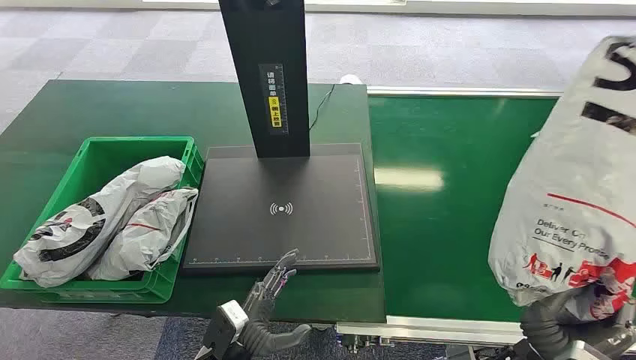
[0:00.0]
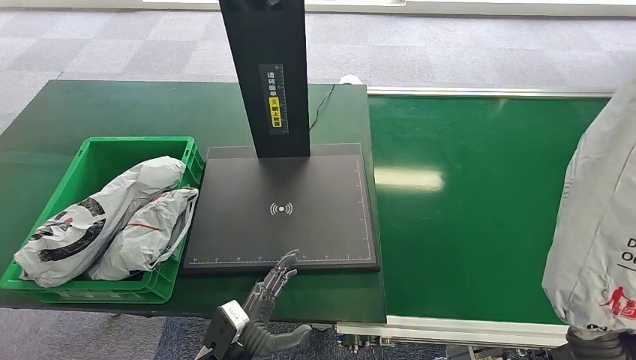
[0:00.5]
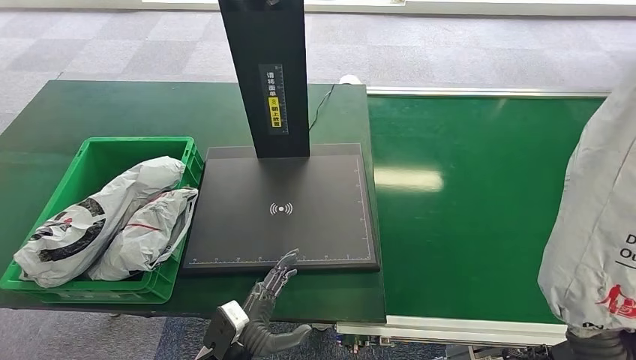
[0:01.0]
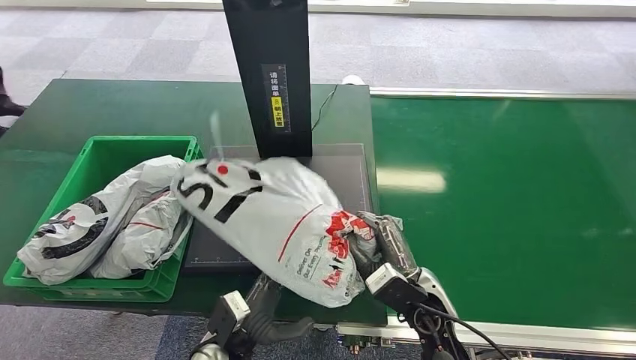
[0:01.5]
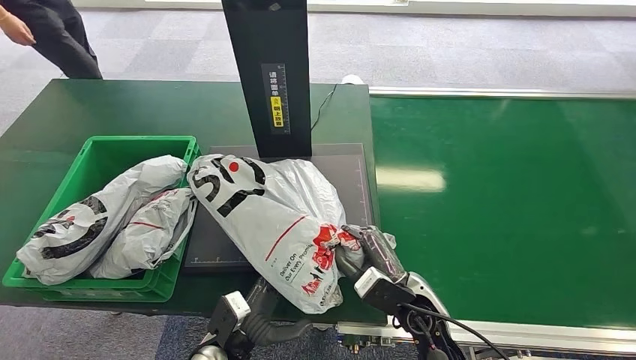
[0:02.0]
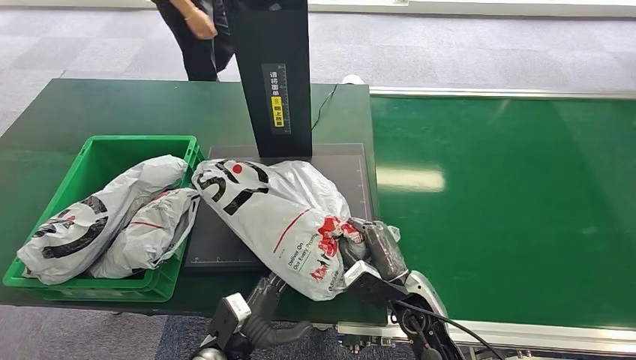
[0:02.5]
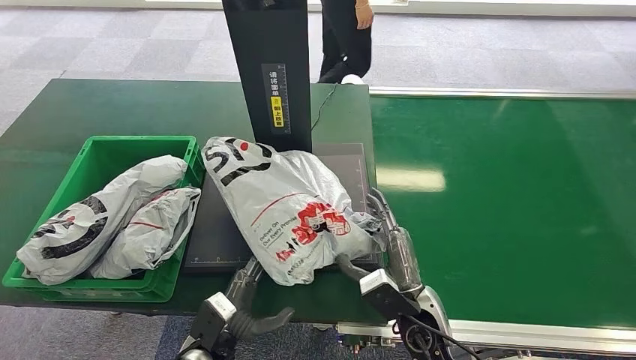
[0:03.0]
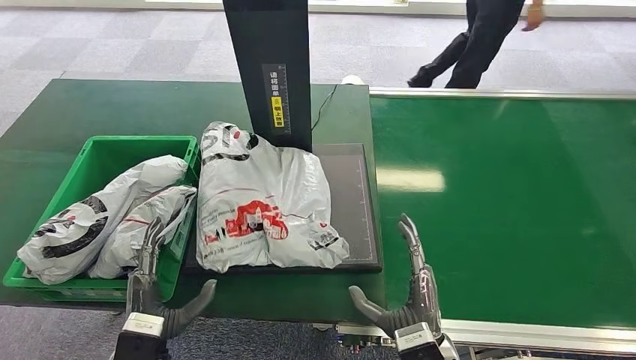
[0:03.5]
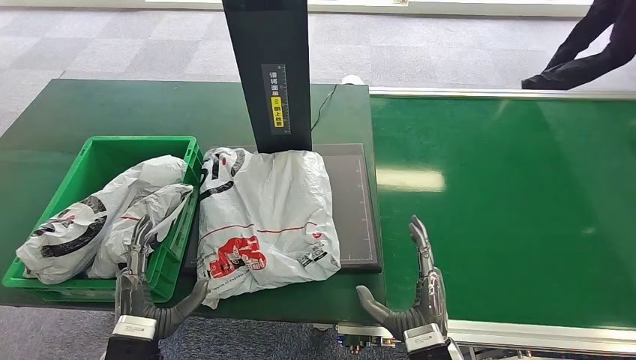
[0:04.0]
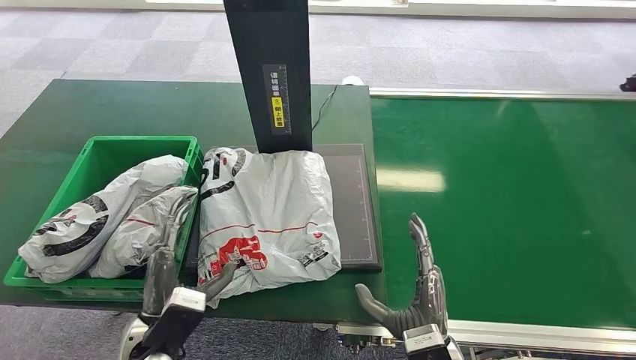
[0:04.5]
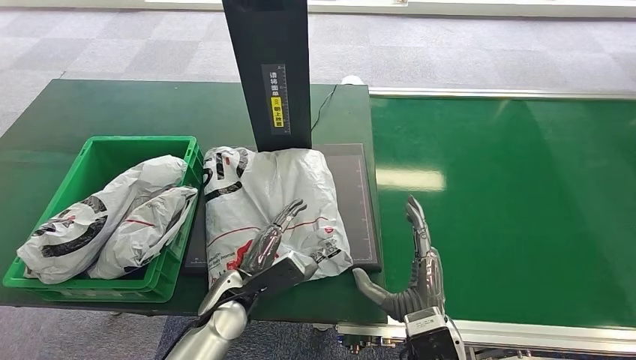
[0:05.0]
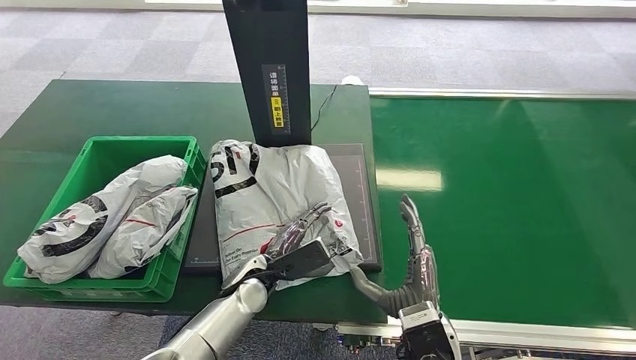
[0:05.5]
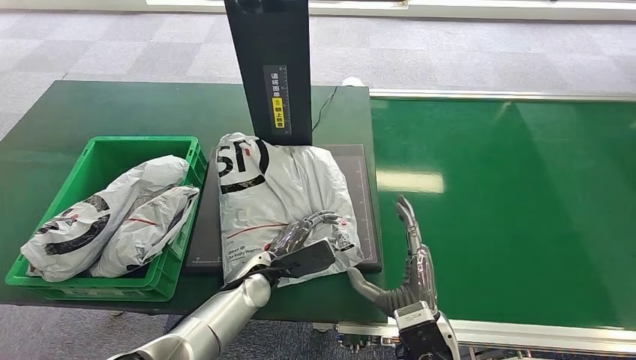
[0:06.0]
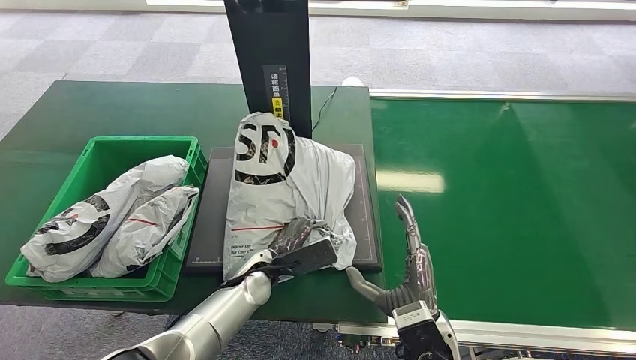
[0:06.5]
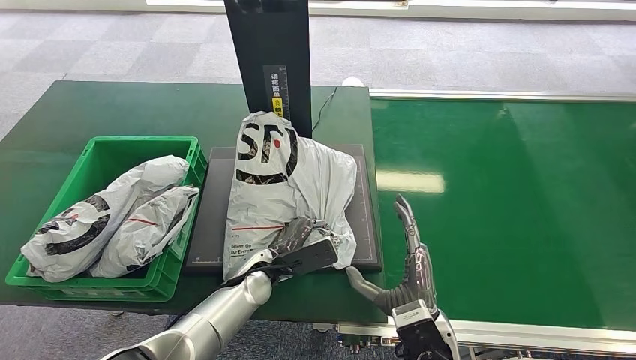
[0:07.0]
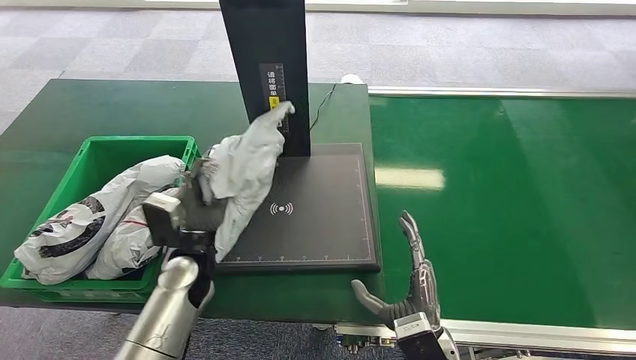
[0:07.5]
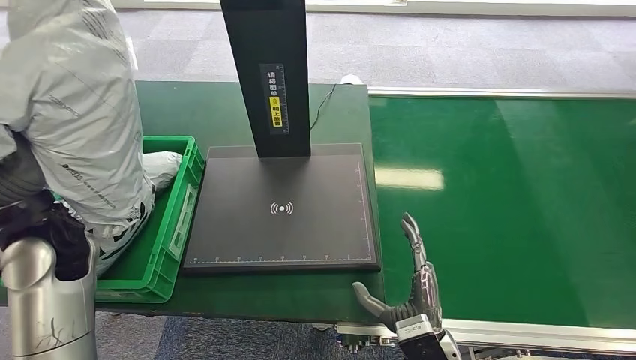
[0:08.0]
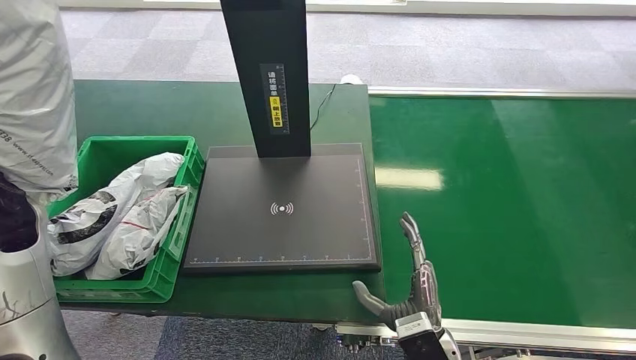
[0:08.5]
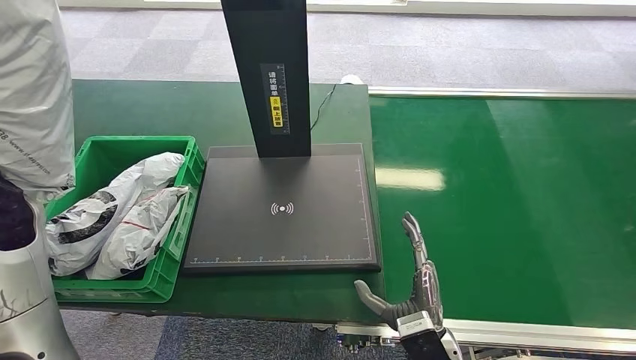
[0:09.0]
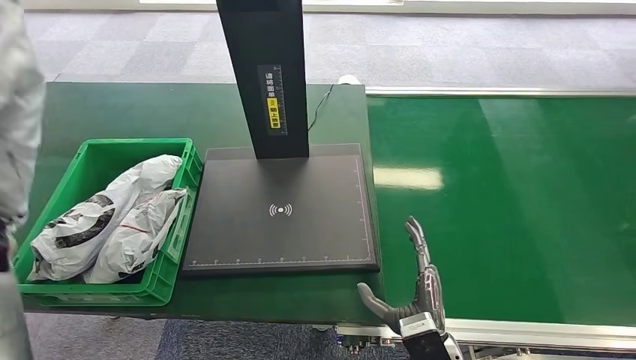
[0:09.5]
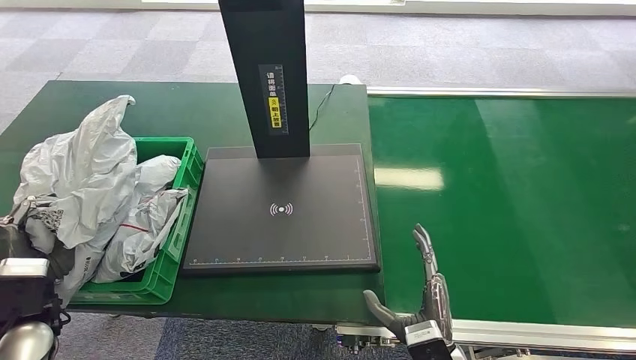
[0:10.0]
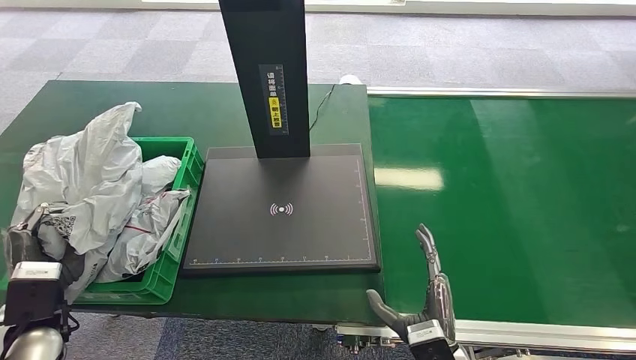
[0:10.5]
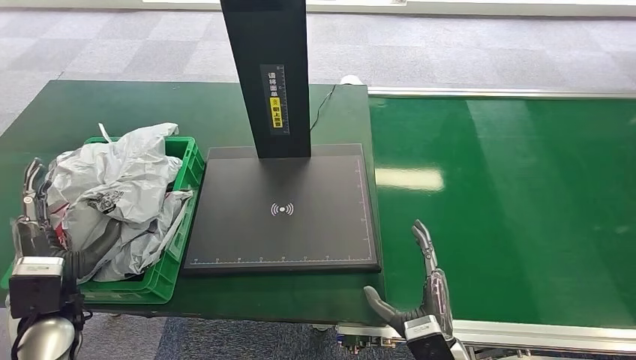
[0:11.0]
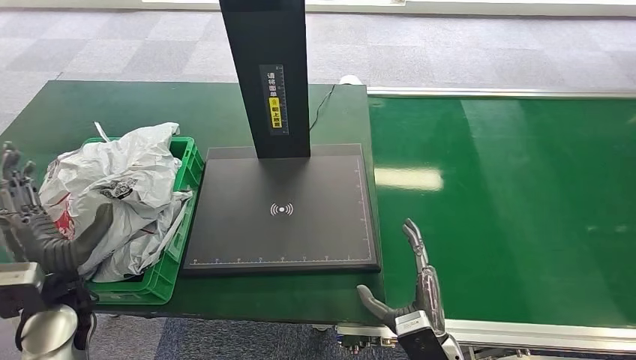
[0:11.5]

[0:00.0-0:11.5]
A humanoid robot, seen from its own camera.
0:09.5 to 0:11.5: The left hand moves downward, to the right and backward, some 15 cm.

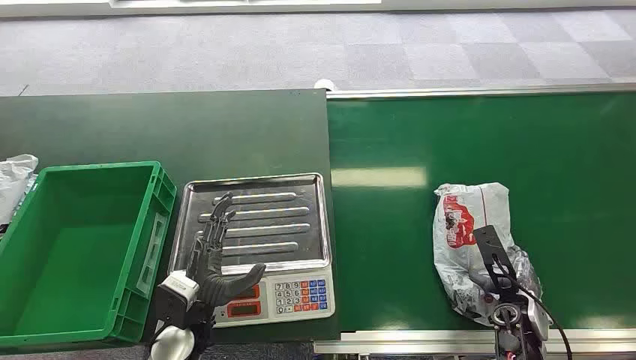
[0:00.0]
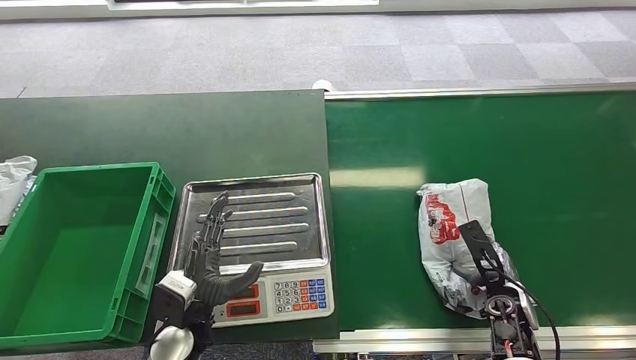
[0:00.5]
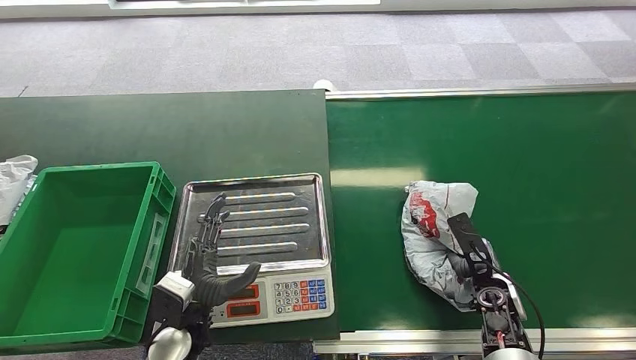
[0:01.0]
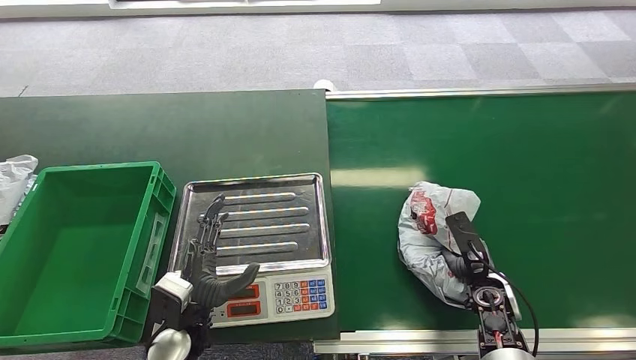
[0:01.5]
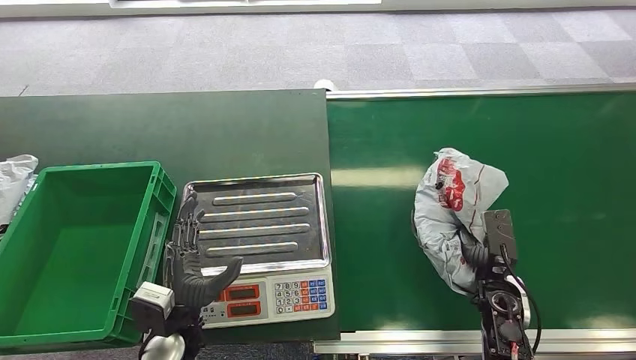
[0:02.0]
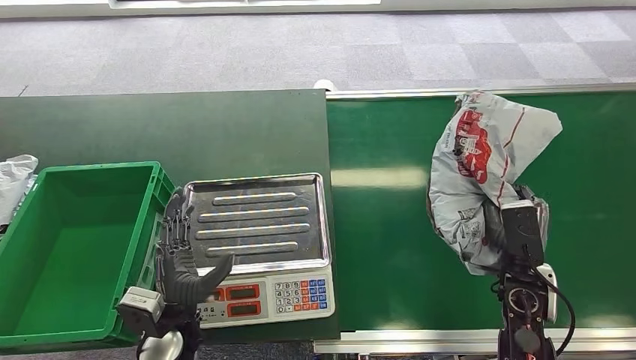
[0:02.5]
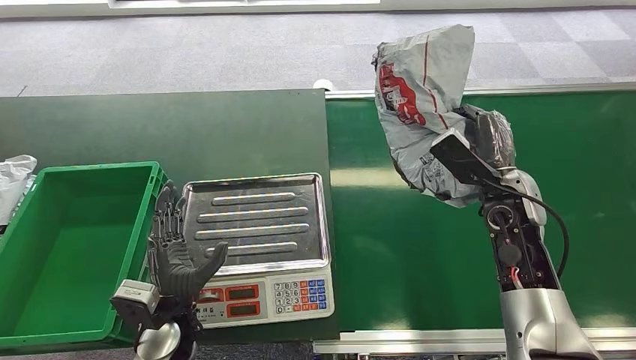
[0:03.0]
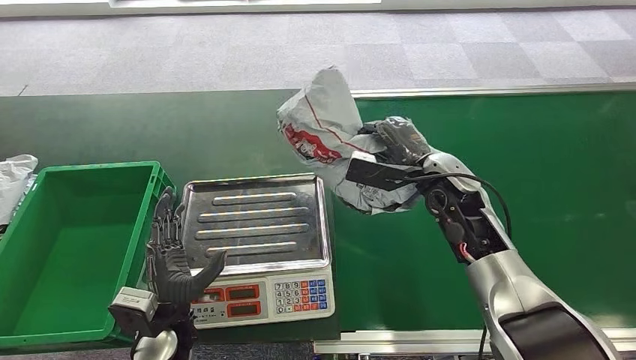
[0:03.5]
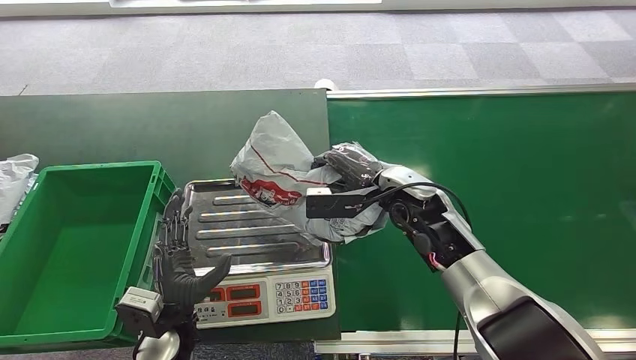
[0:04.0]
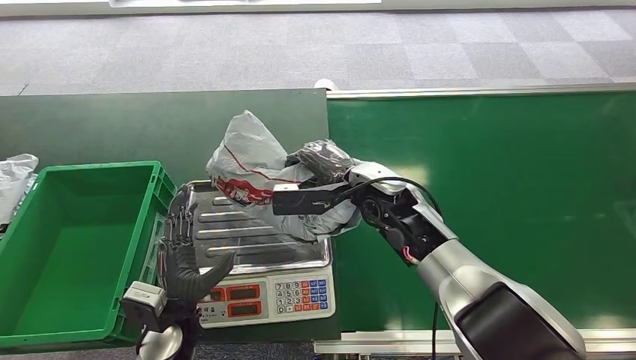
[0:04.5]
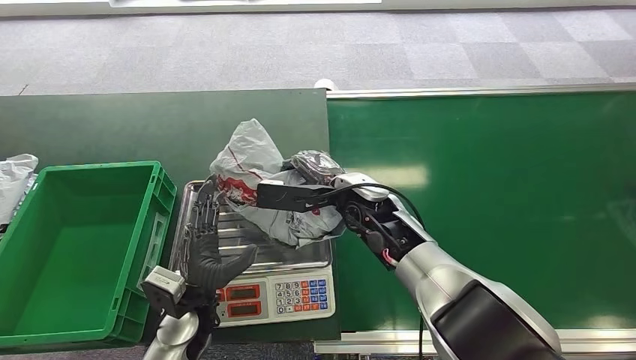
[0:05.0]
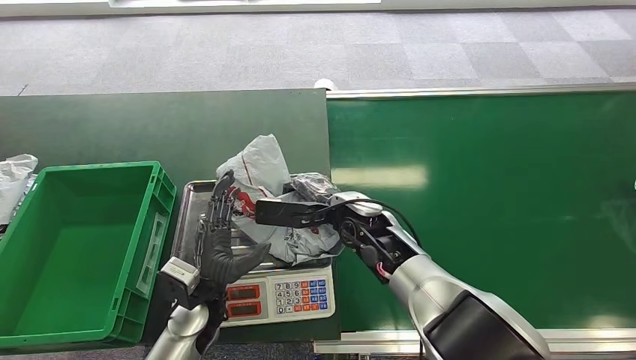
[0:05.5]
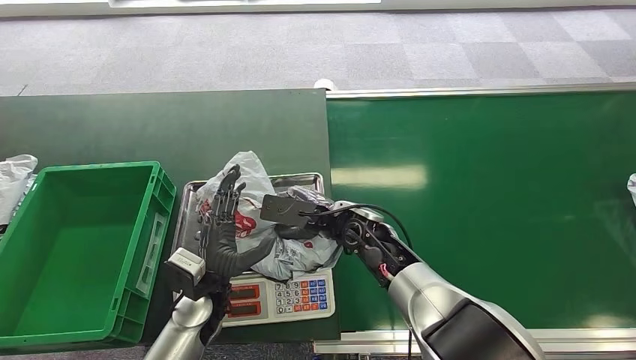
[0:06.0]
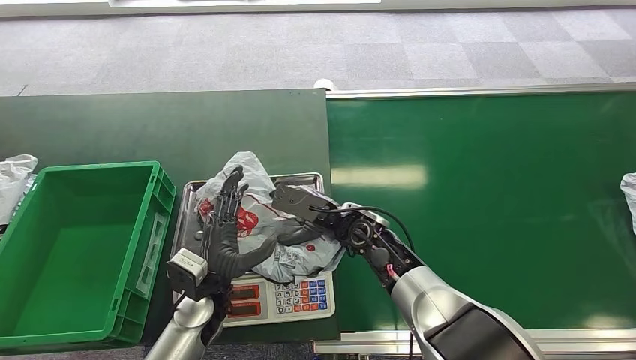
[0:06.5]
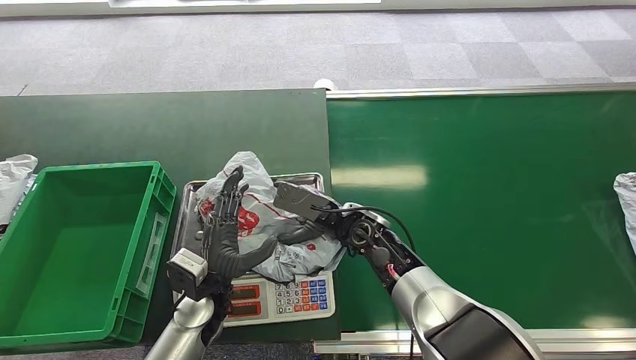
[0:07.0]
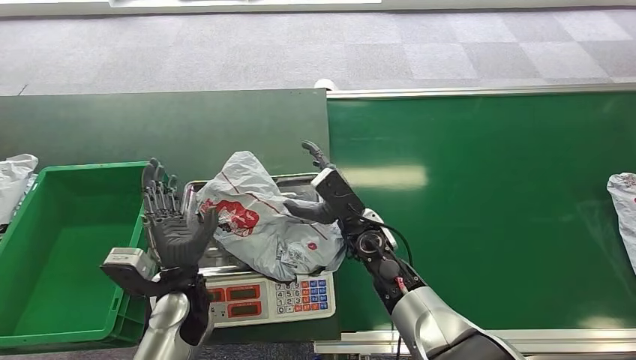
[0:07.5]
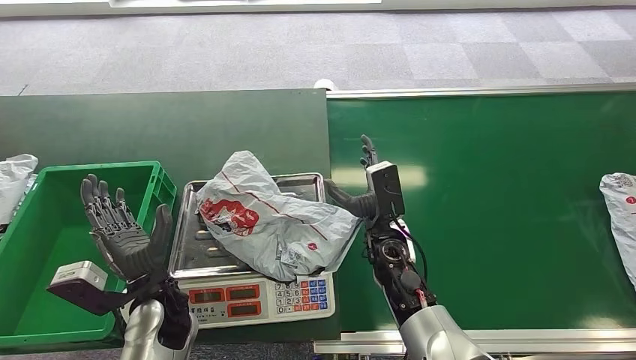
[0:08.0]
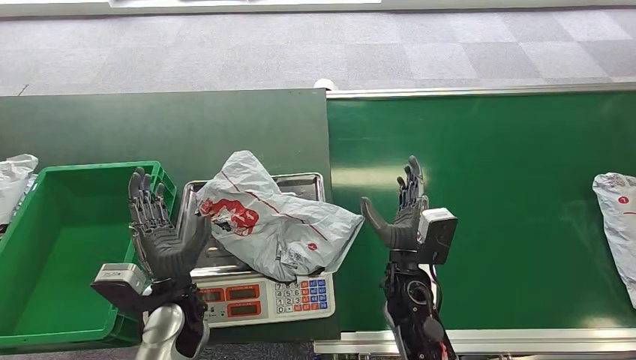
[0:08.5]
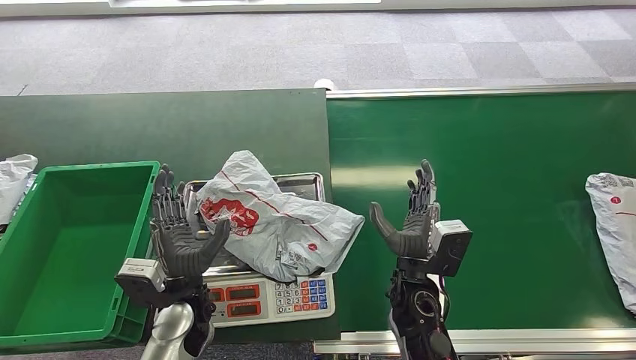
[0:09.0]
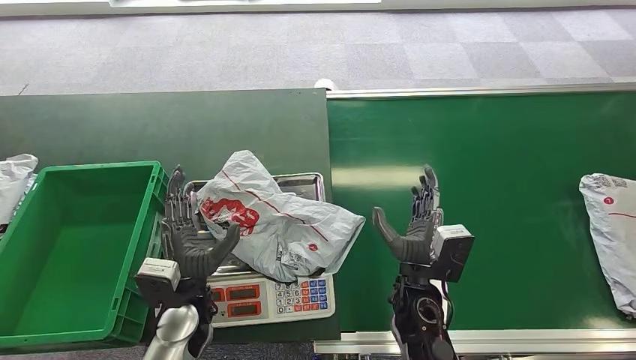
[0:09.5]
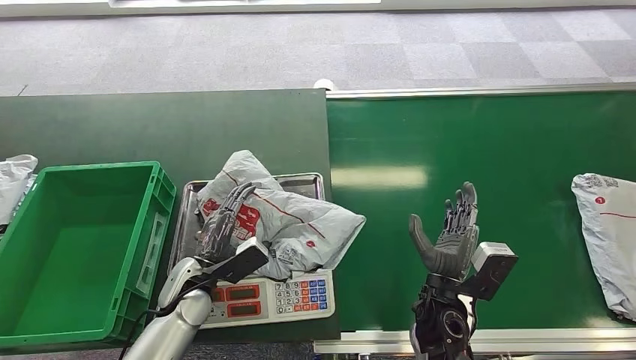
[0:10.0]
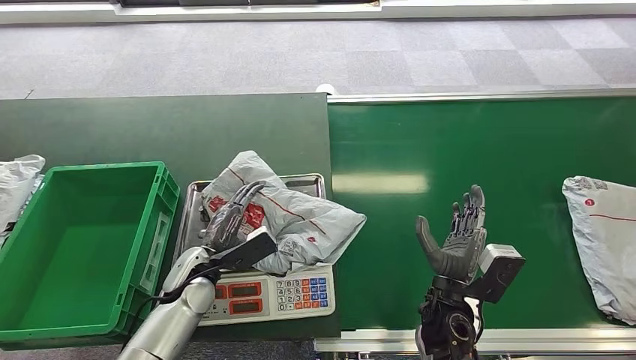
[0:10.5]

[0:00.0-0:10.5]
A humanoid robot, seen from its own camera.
Step, 0:00.0 to 0:02.5: Pick up the package from the conveyor belt.
Step, 0:04.0 to 0:06.0: Place the package onto the inbound machine.
0:02.0 to 0:04.0: The right hand travels upward, to the left and forward by approximately 25 cm.
0:06.5 to 0:08.5: The right hand shifts approximately 10 cm backward.
